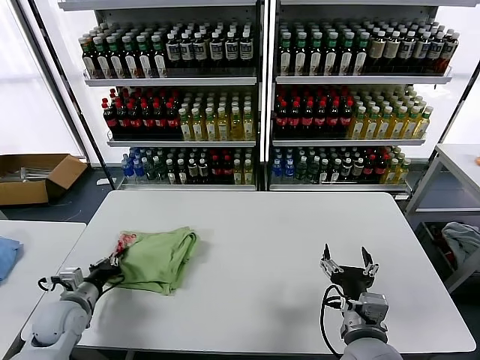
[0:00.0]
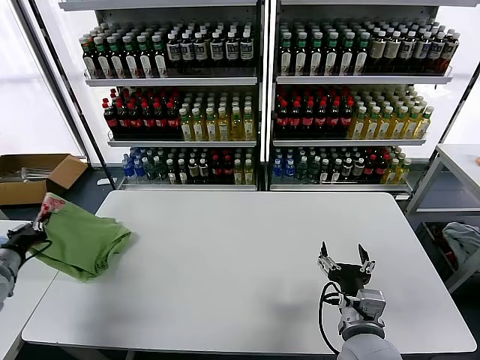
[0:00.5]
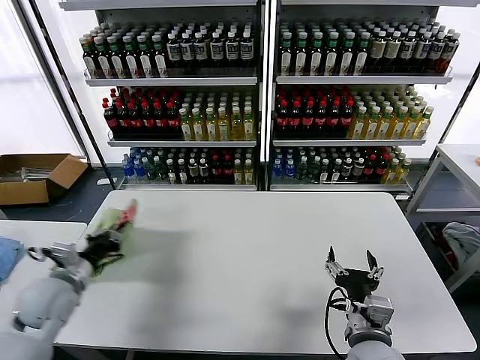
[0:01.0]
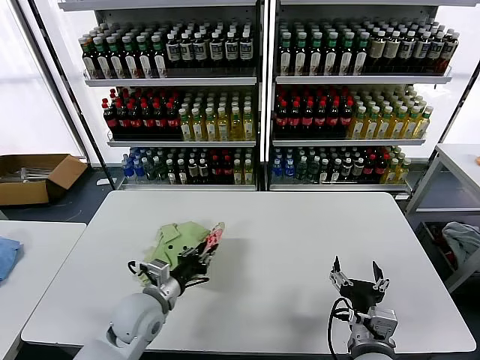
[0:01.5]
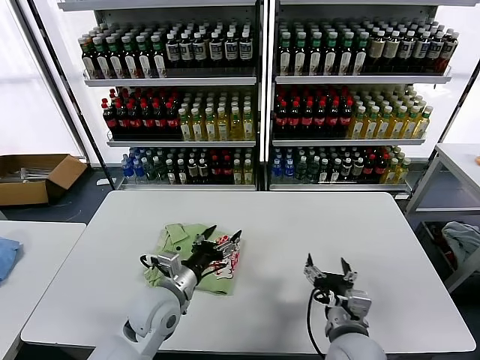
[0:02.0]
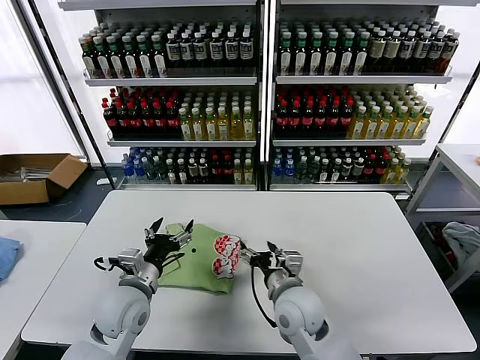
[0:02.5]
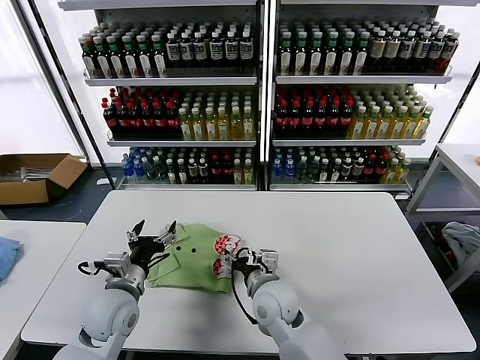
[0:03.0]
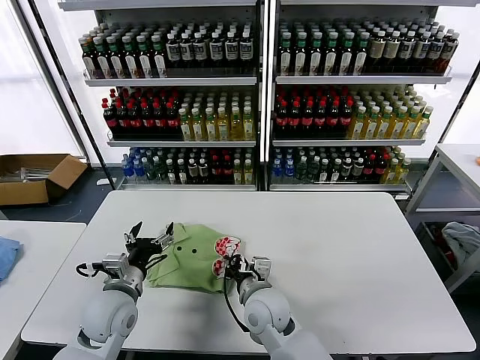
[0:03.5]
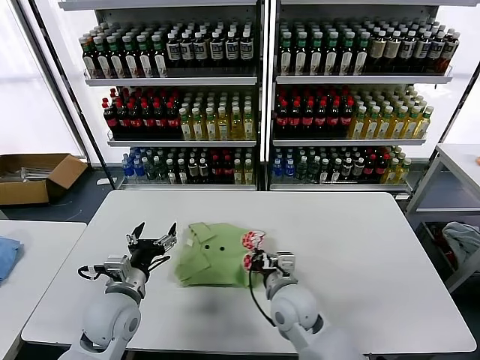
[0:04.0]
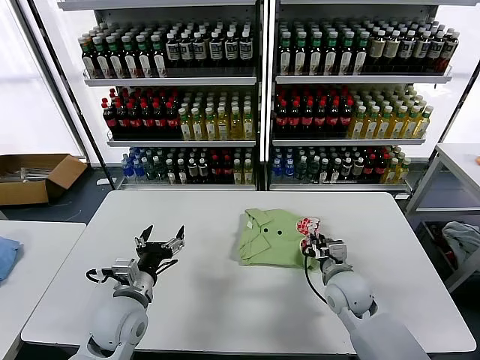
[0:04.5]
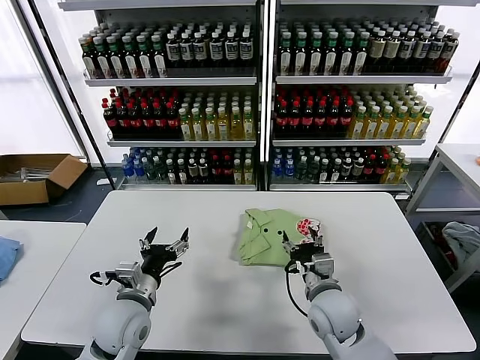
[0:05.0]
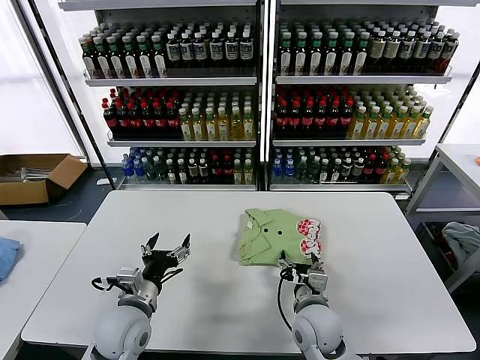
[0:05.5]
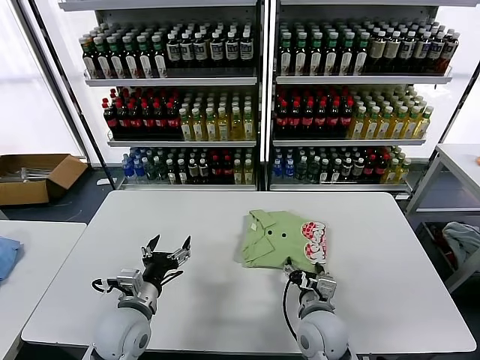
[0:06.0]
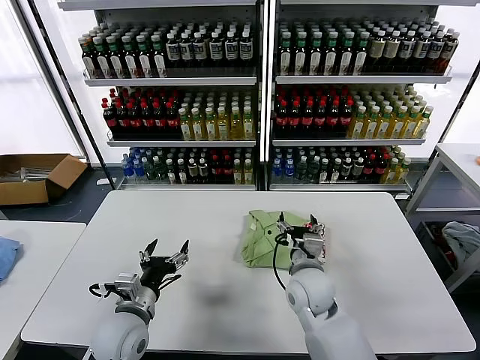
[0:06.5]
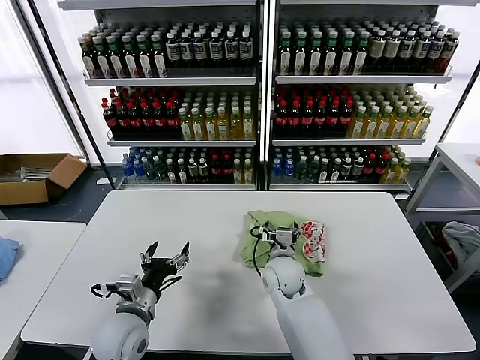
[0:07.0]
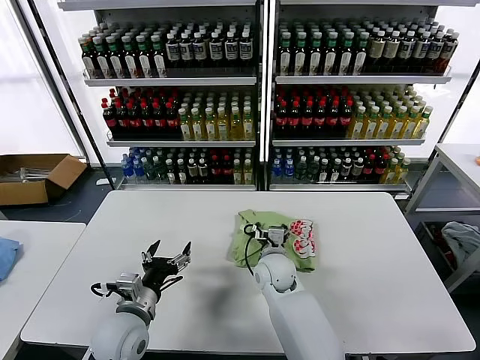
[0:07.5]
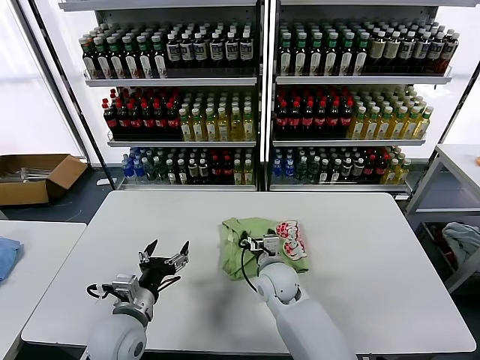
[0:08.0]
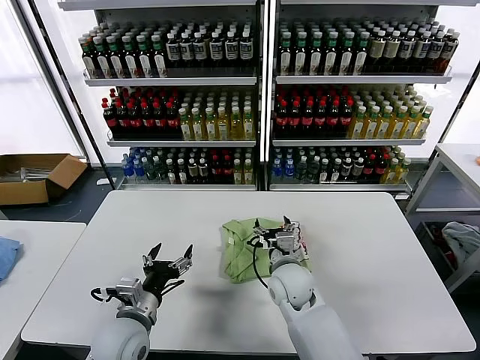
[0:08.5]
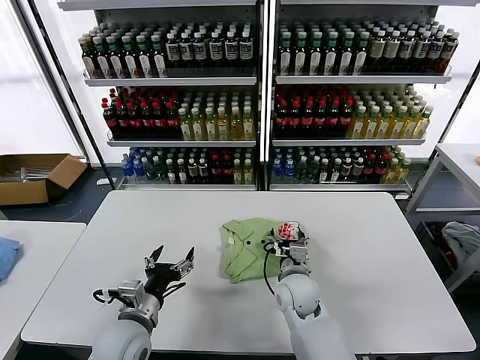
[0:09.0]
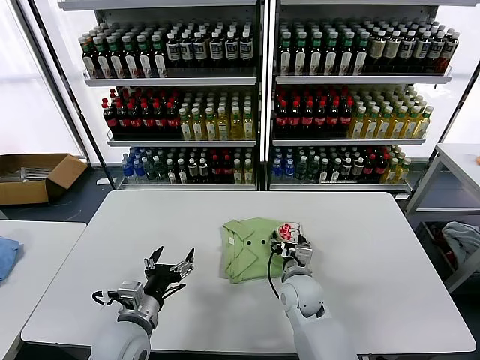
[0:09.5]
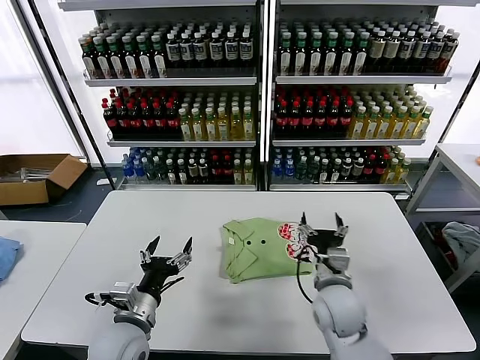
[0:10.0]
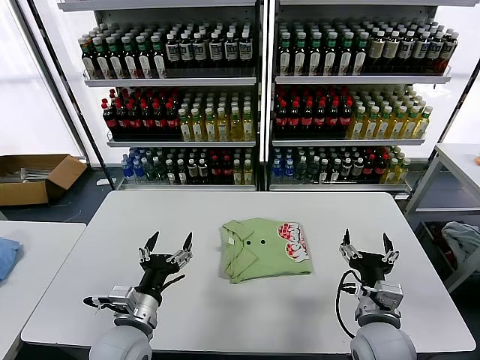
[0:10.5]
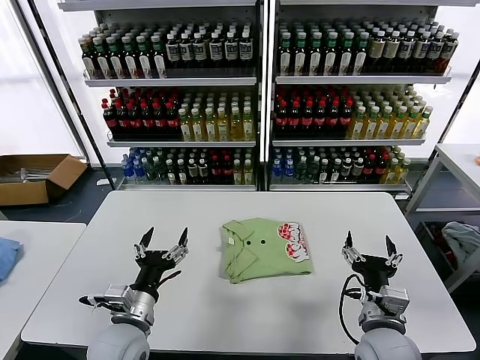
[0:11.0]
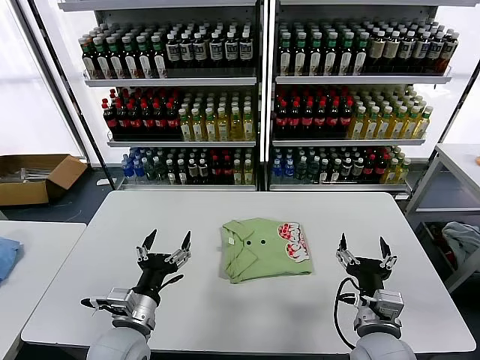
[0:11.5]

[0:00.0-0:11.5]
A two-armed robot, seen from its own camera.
Task of the whole recording: fold and organize the clothes.
Step, 0:02.0 to 0:09.5: Drag the clothes to the center of the table.
0:00.0 to 0:02.0: The left gripper is displaced to the right by about 25 cm, and opens up.
0:02.0 to 0:04.0: The left gripper is displaced to the left by approximately 10 cm. Meanwhile the right gripper moves forward and to the left, about 15 cm, and closes.
0:04.0 to 0:06.0: The right gripper heads to the right, covering some 5 cm, and opens.
0:06.0 to 0:07.5: The right gripper moves forward and to the left, approximately 15 cm.
0:07.5 to 0:09.5: The right gripper goes about 5 cm to the right.
0:09.5 to 0:11.5: The right gripper travels backward, to the right and upward by about 20 cm.
